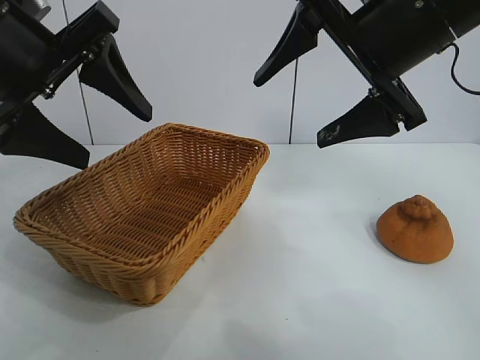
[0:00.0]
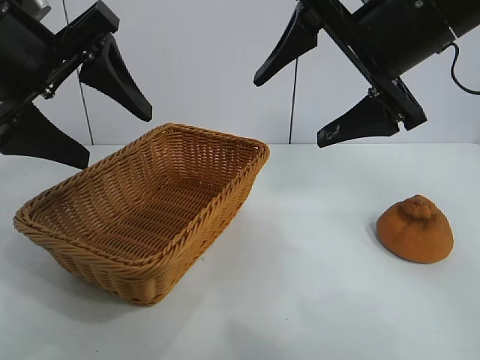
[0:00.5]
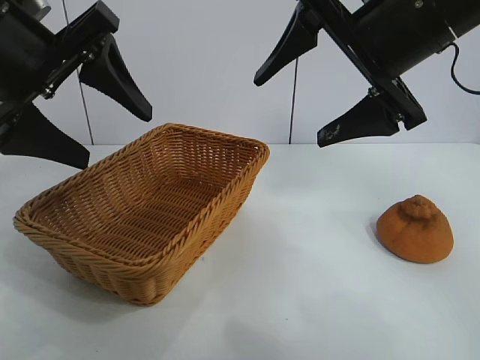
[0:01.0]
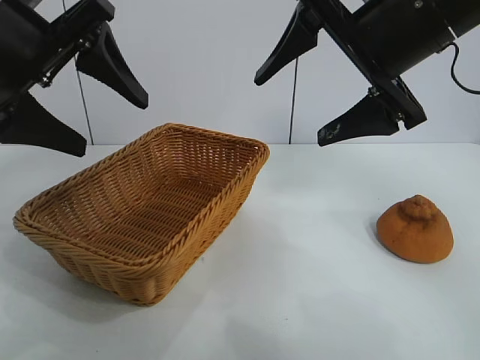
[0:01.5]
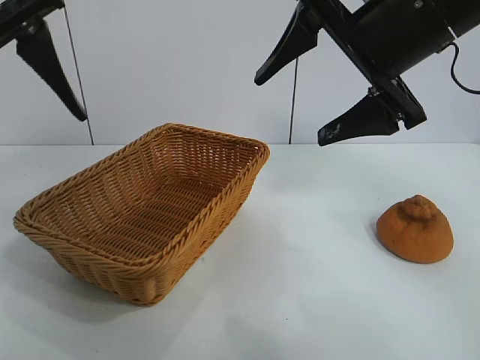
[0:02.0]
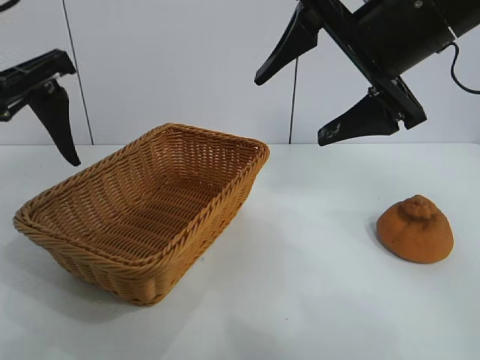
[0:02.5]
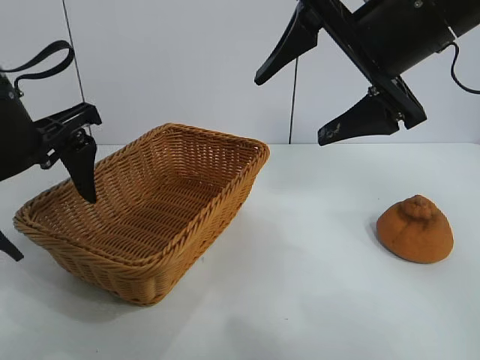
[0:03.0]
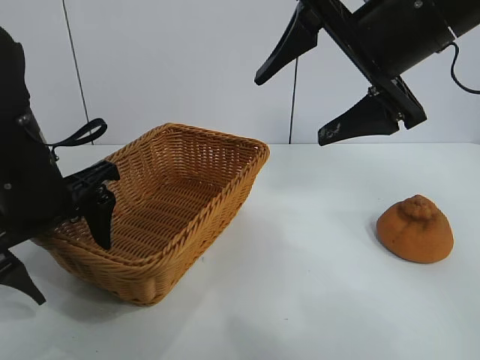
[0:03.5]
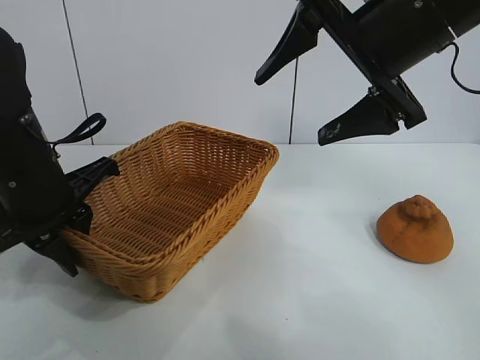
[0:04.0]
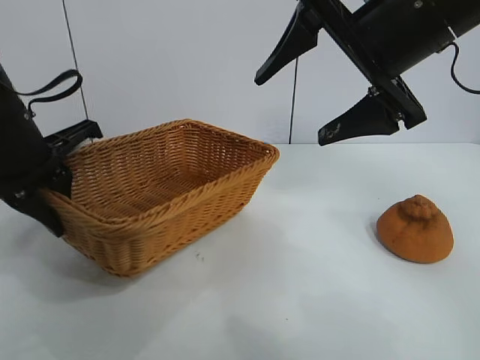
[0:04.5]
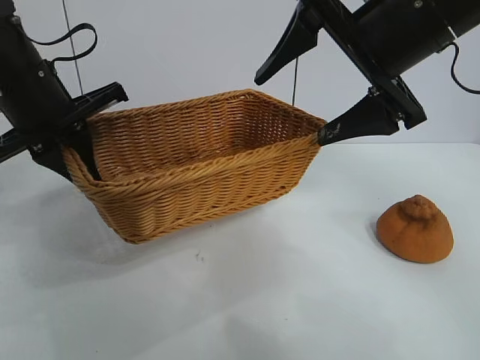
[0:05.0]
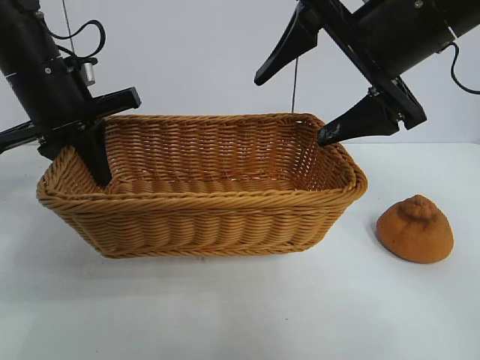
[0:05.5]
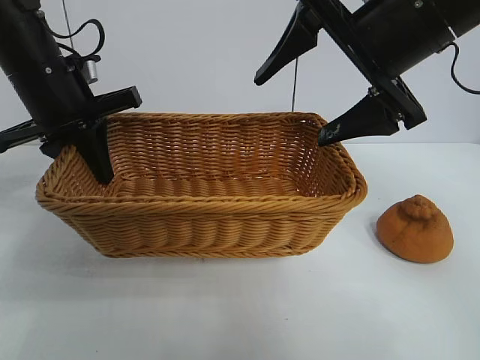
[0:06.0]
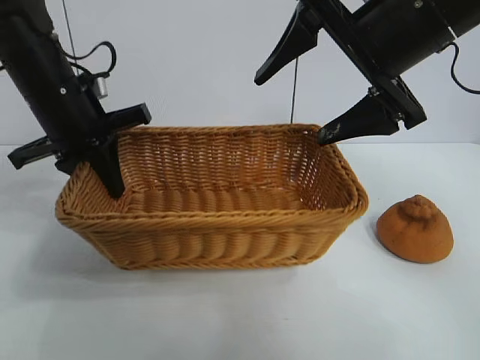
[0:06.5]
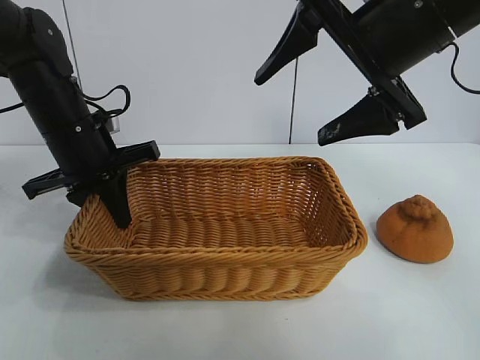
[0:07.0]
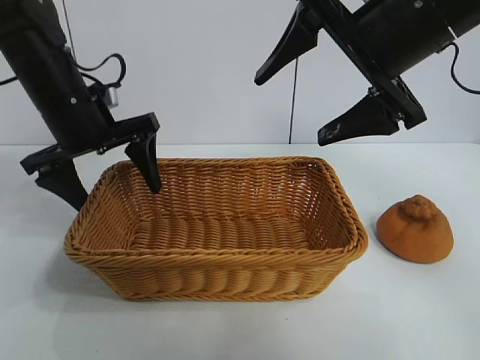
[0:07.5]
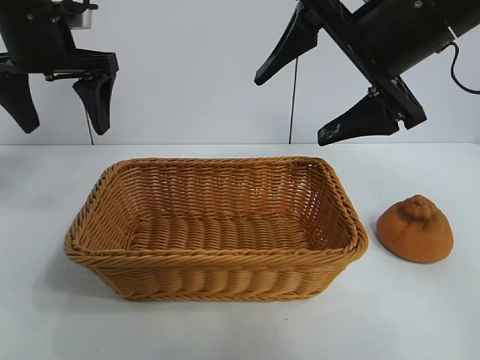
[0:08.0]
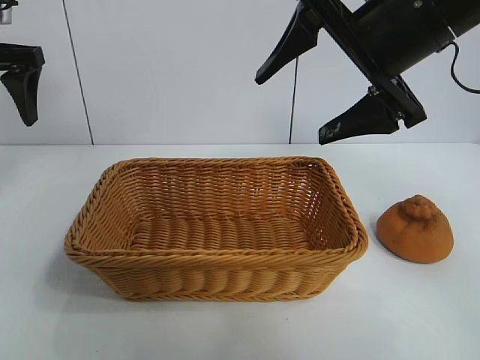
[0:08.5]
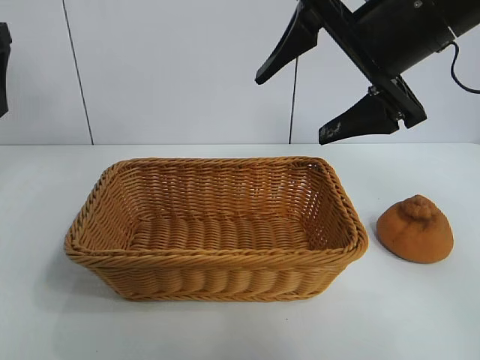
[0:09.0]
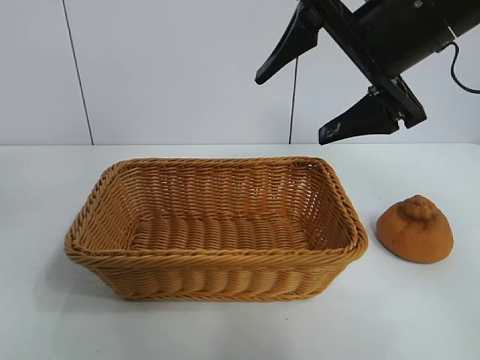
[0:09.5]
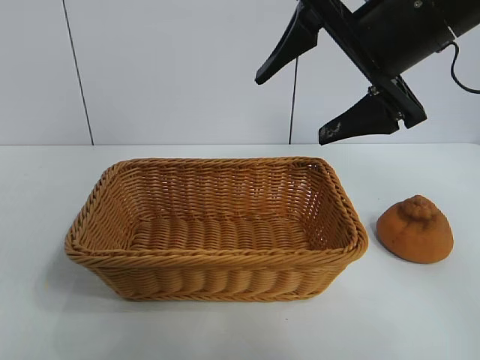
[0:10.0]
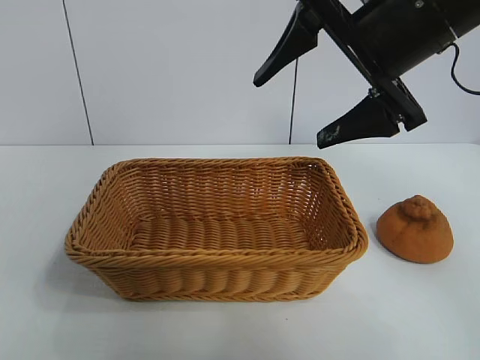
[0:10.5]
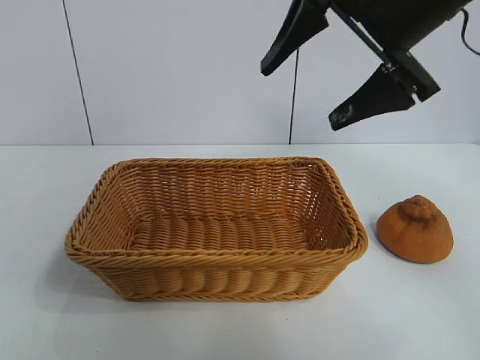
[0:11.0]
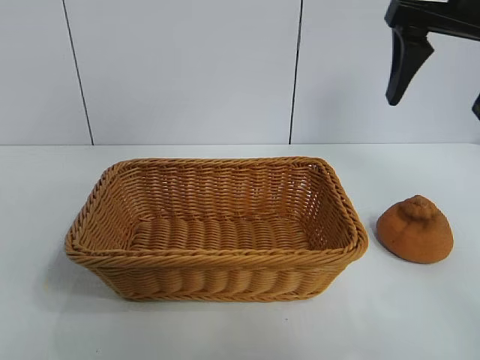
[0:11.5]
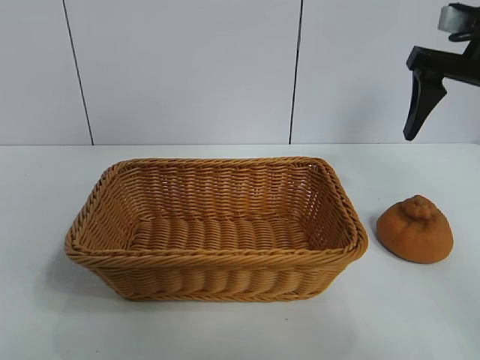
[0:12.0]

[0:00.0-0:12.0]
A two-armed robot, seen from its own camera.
Task of the whole recording: pick up the orange and put it into the basket.
Step, 0:01.5 to 0:03.5: Grasp the basket with left gripper.
Step, 0:04.5 to 0:07.0: Place the basket in the center of view with left gripper.

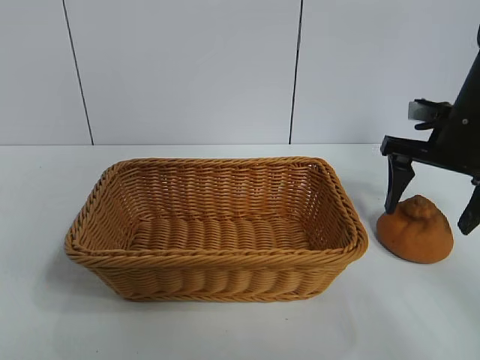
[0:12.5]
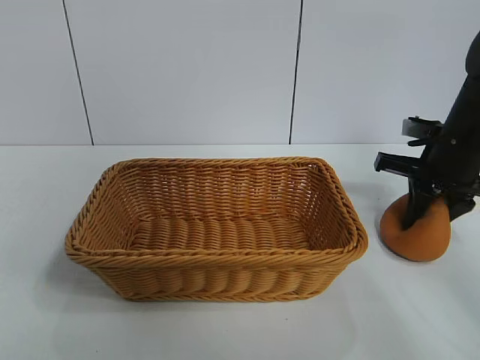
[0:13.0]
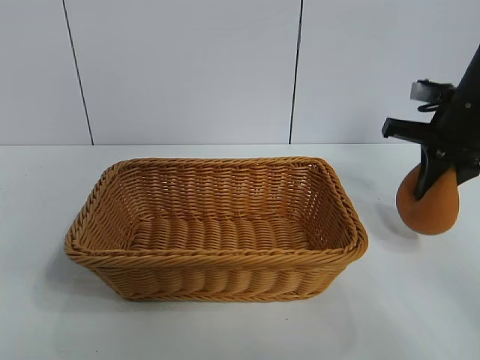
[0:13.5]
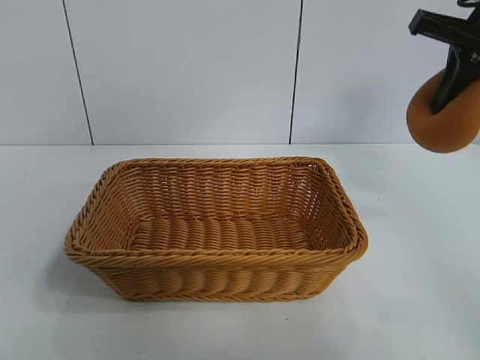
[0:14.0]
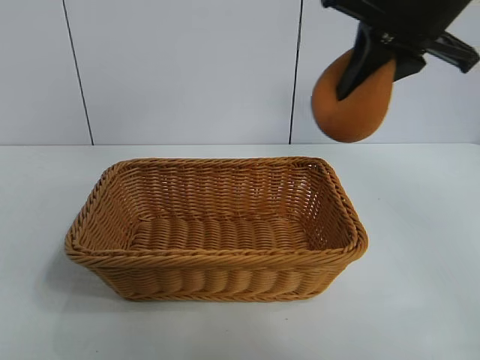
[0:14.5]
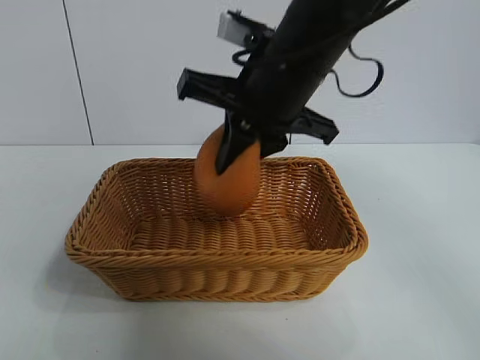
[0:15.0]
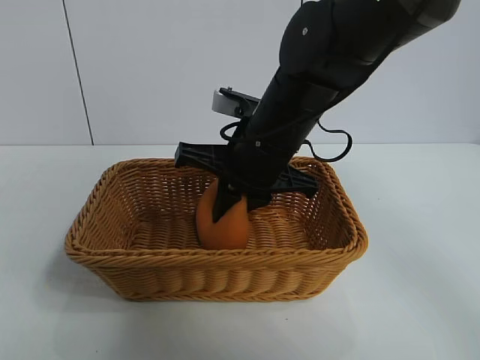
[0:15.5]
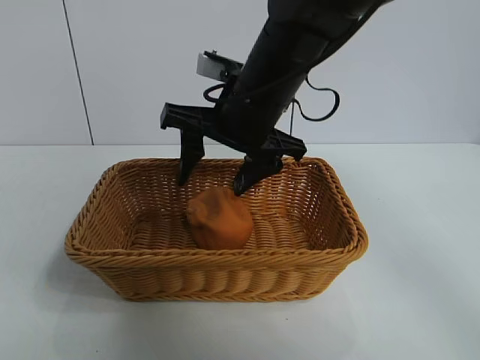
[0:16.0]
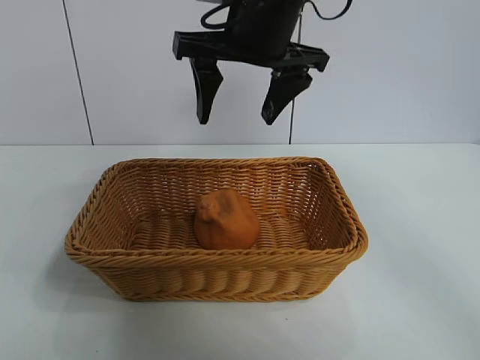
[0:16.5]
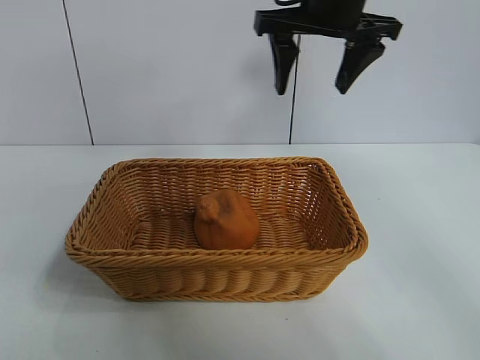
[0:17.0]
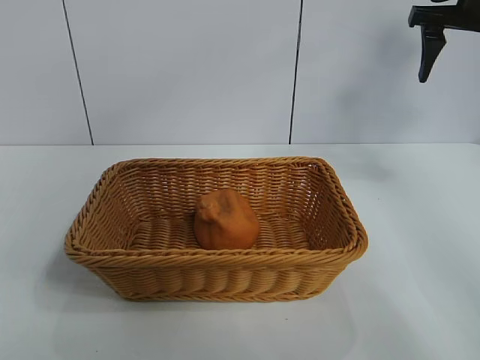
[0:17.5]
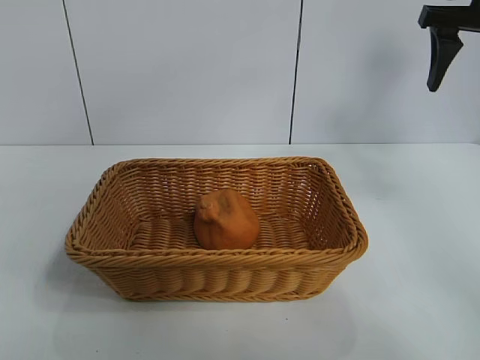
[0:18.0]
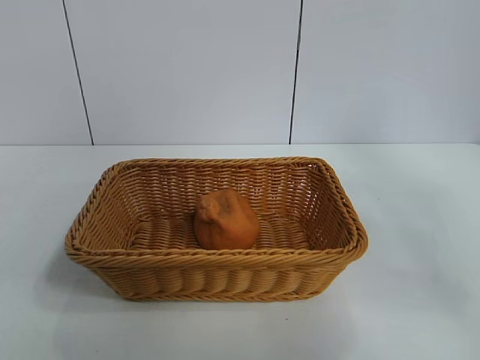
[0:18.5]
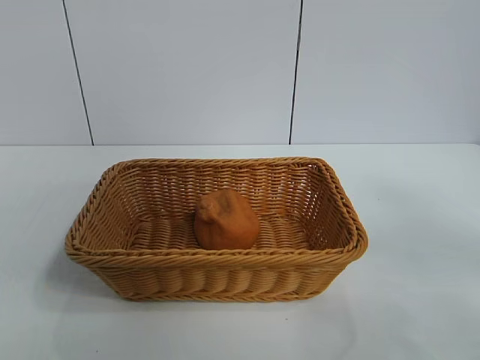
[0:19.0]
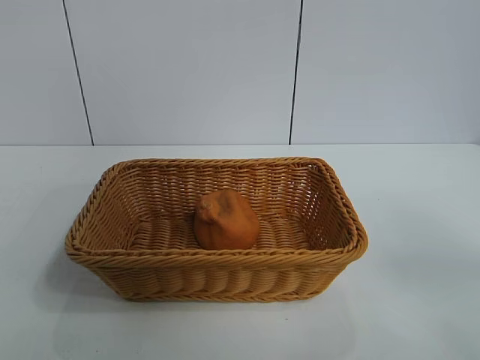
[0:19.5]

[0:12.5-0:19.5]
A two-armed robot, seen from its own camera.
Task of the whole recording: pick up the orange and put it into the basket.
Step, 0:13.5 to 0:16.0: Place the orange in the basket with right gripper.

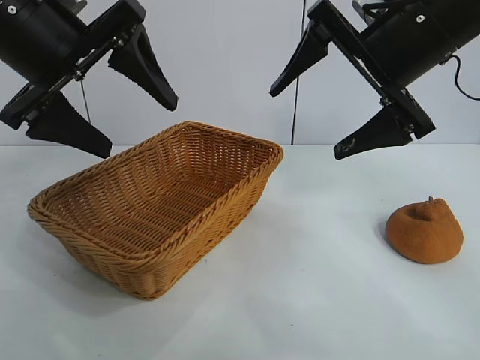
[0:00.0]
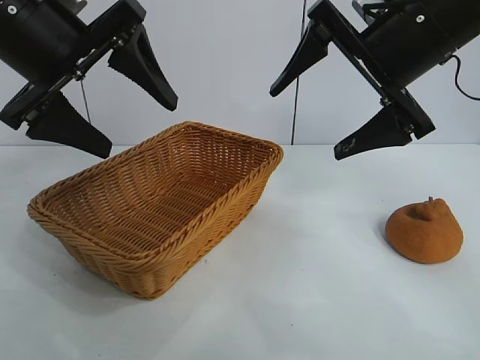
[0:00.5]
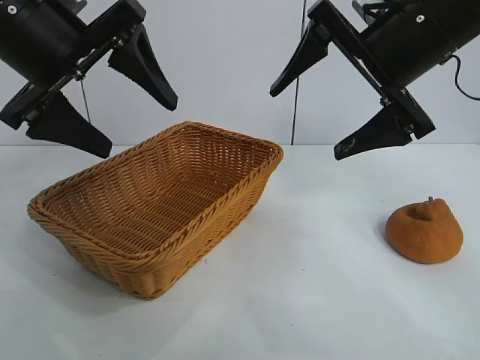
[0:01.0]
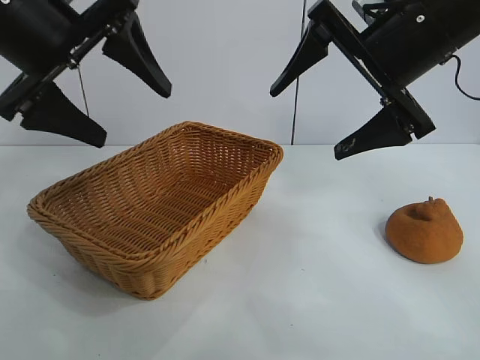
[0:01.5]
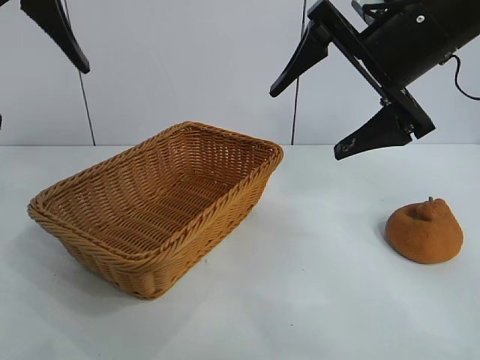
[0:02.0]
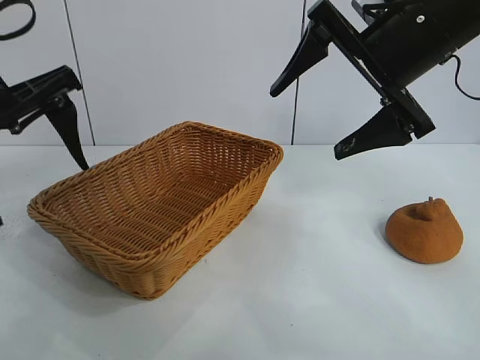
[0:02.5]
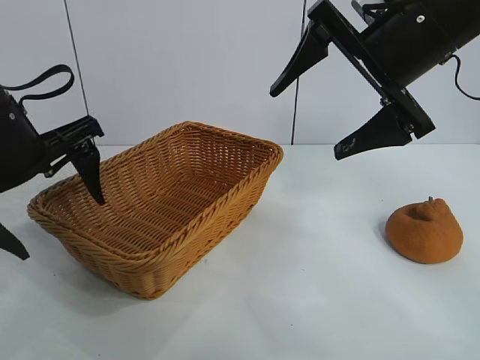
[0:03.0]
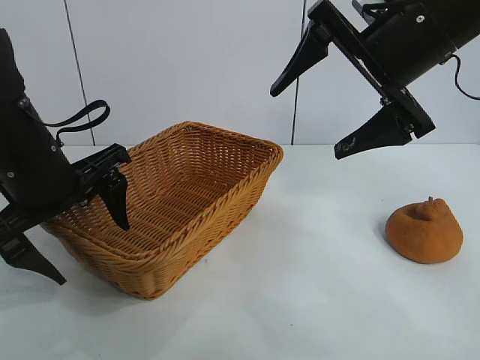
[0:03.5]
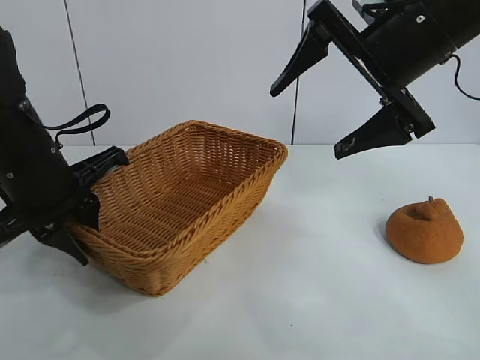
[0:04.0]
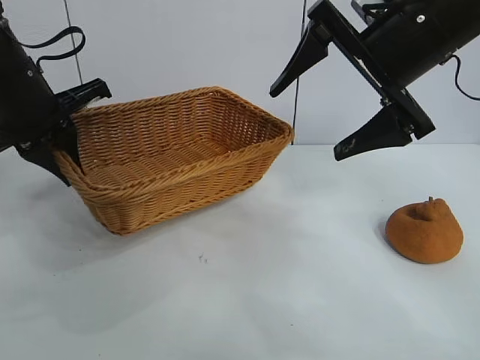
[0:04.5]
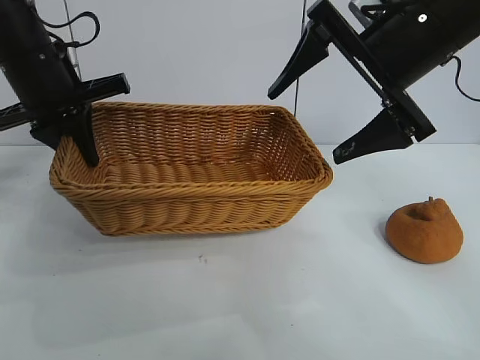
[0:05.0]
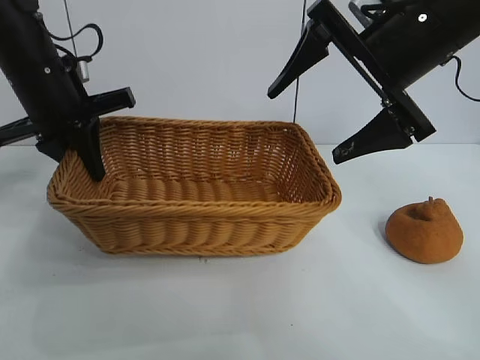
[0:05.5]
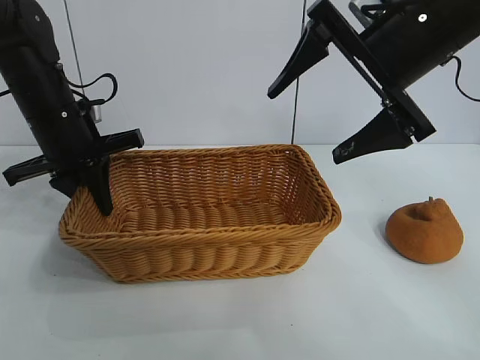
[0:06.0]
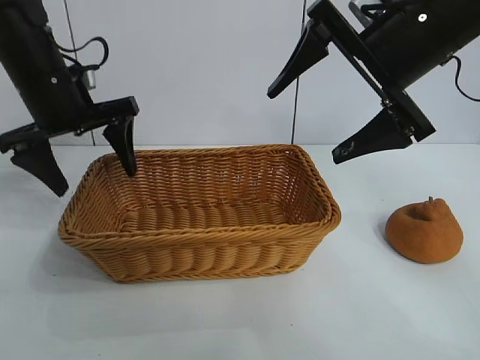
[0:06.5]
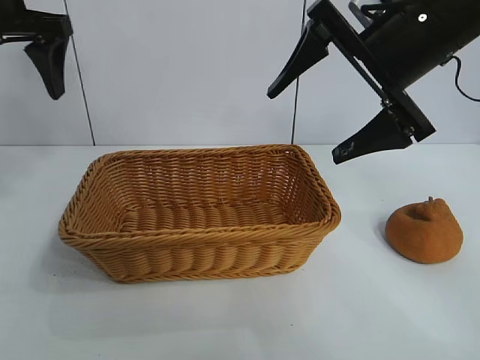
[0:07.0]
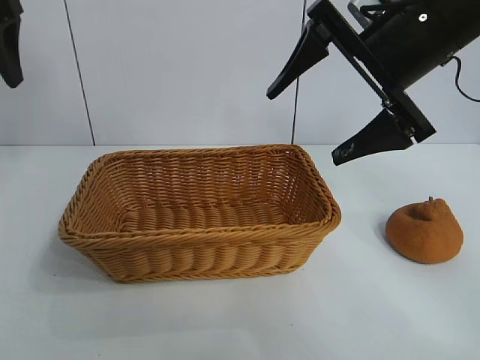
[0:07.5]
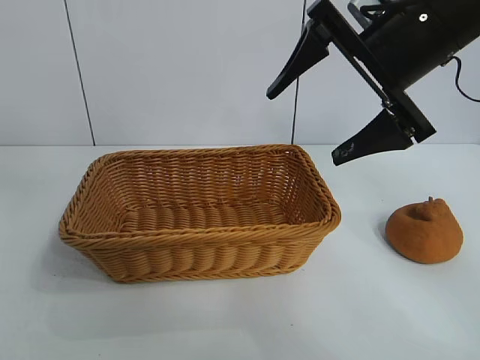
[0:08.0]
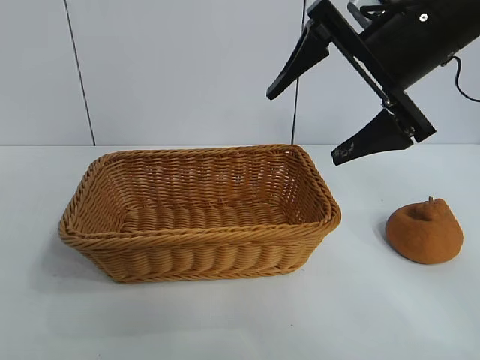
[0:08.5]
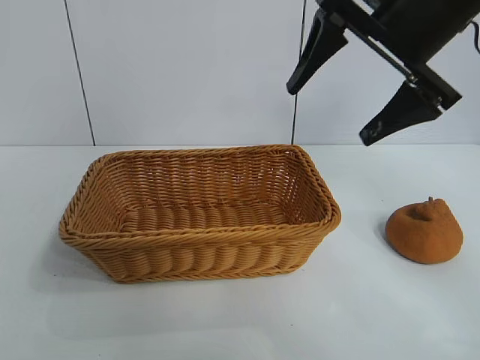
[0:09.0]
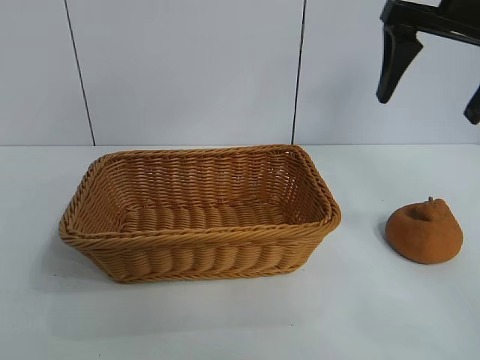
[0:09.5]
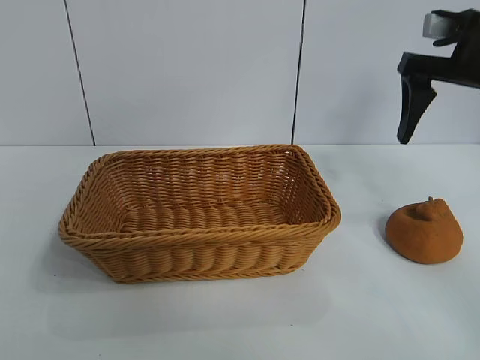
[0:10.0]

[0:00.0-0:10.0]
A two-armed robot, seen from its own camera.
Task of the whole recording: pick up the orange and put it into the basket.
Step, 0:01.0 to 0:04.0: Grasp the basket with left gripper.
Step, 0:04.5 to 0:06.0: Place the basket in the center of view with left gripper.
